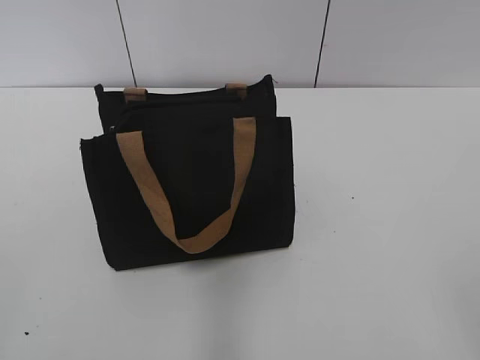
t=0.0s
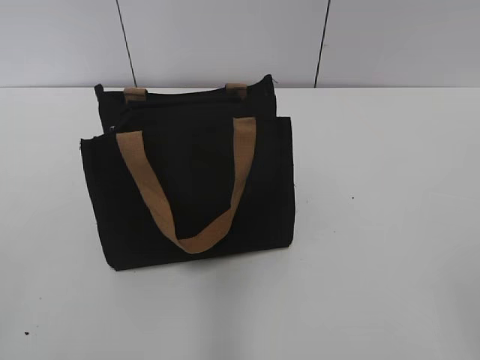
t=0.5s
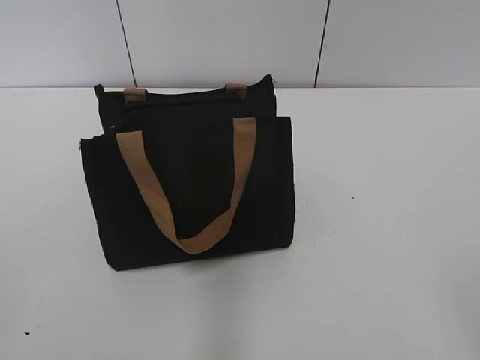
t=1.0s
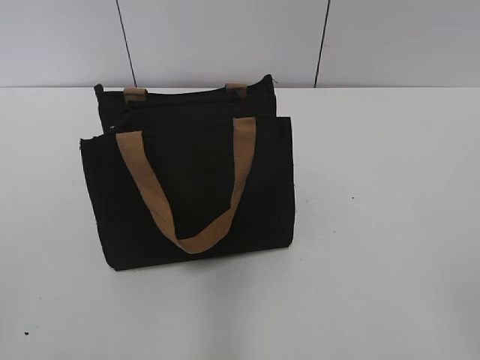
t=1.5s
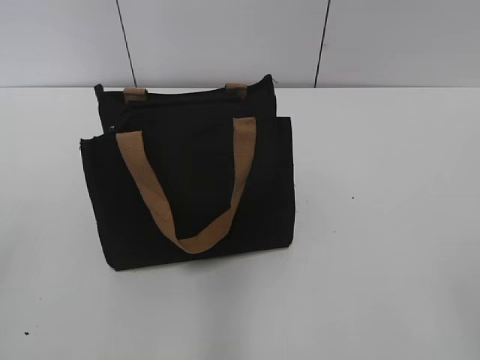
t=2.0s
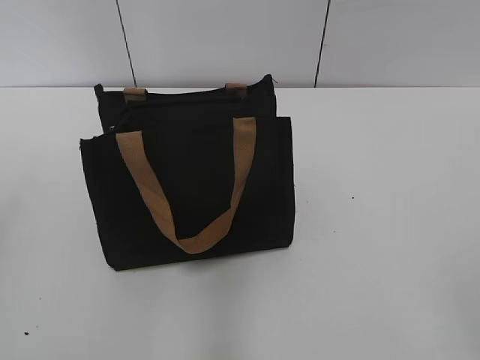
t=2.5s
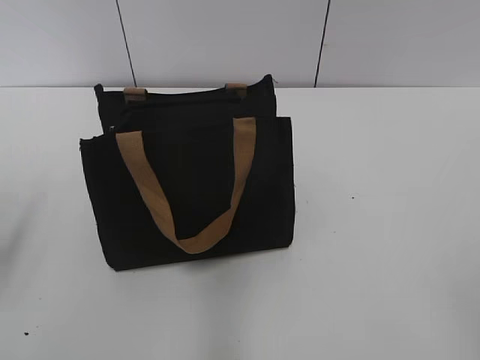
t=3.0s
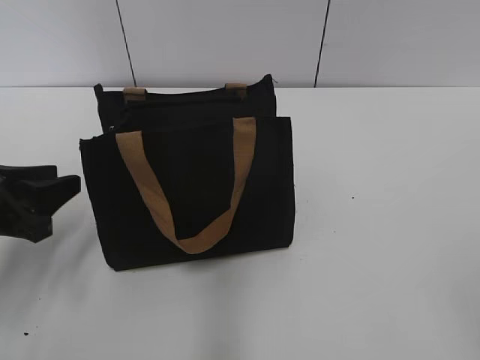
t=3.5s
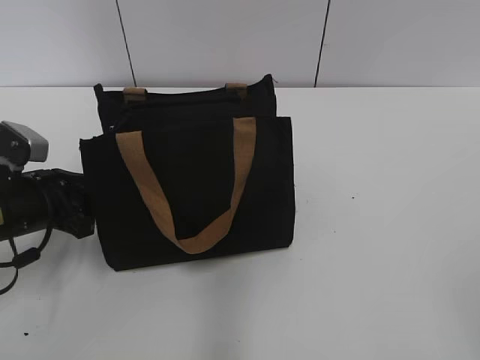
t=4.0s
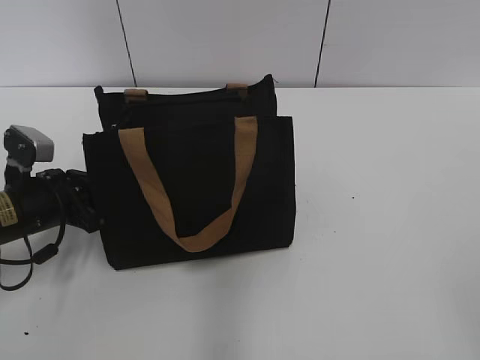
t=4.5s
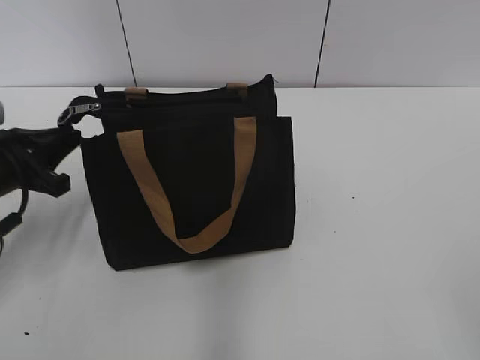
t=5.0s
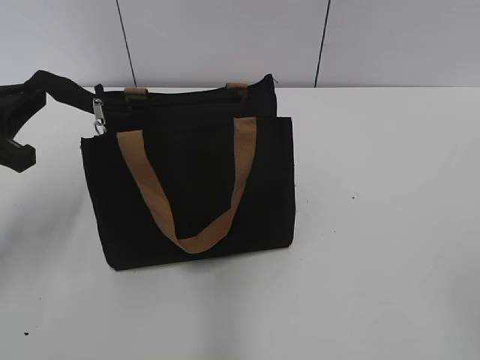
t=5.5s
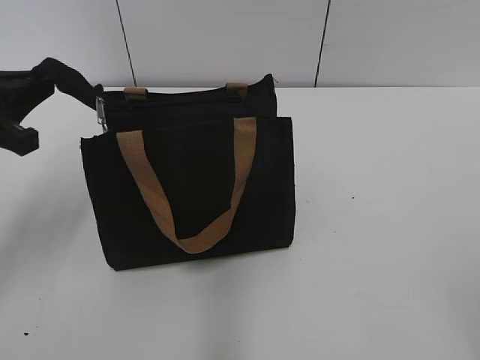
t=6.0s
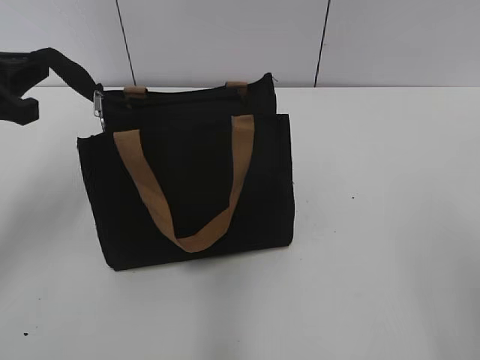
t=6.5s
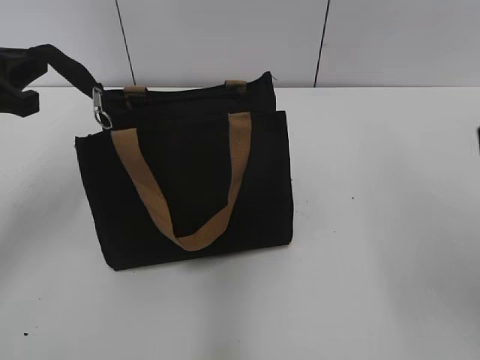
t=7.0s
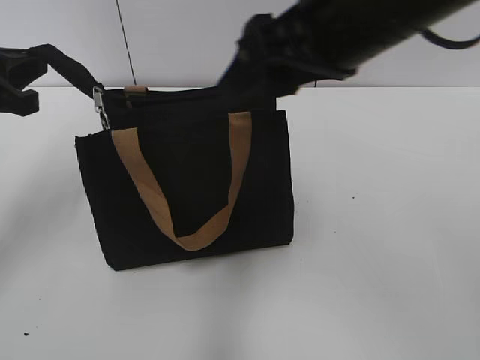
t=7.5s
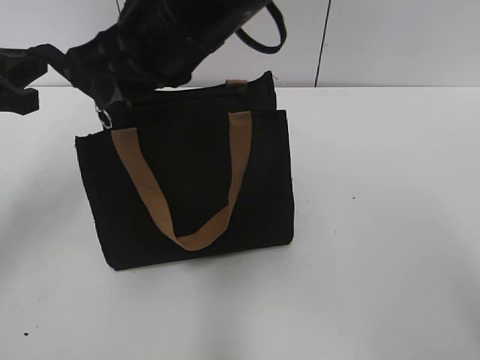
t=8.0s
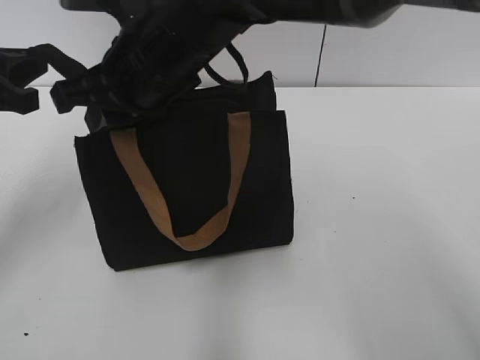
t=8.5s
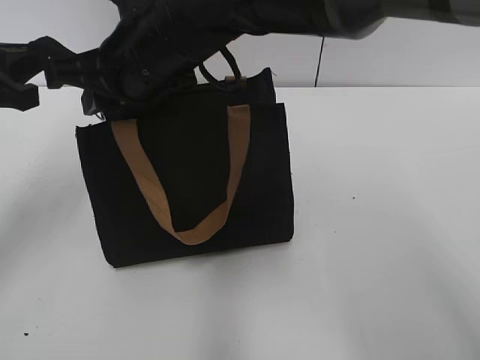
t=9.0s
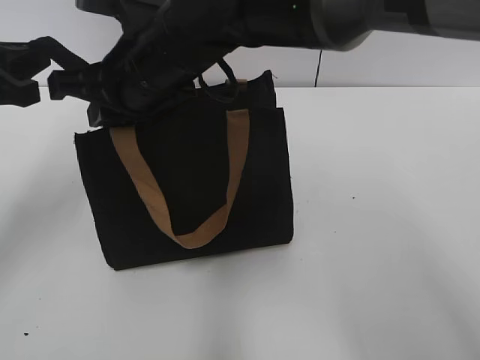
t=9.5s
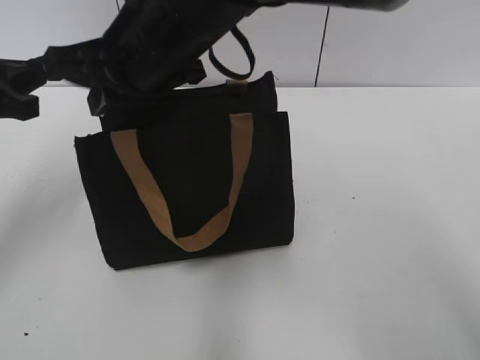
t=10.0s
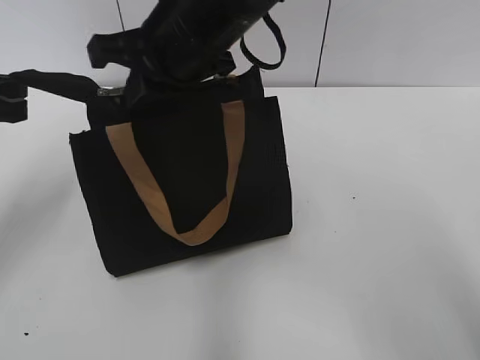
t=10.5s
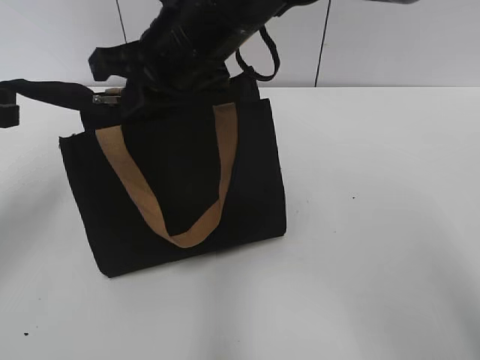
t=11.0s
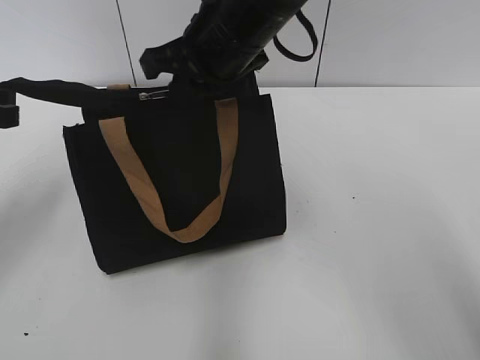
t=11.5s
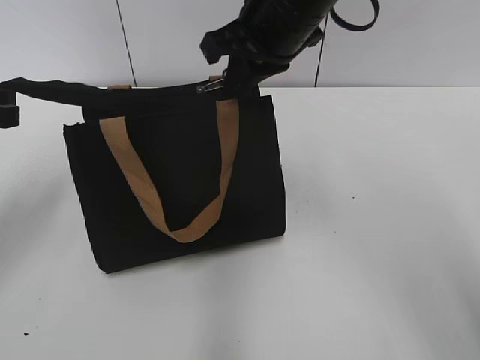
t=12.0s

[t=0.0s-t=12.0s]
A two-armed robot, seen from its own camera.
t=2.0s to t=4.0s: The left gripper travels forward and downward by about 35 cm.
t=4.0s to t=6.0s: The left gripper moves upward, approximately 15 cm, and closes up.
t=6.0s to t=8.0s: The right gripper is displaced to the left and forward by about 40 cm, and closes.
t=8.0s to t=10.0s: The right gripper closes its fingers.
t=10.0s to t=12.0s: The right gripper is displaced to the right by some 10 cm.

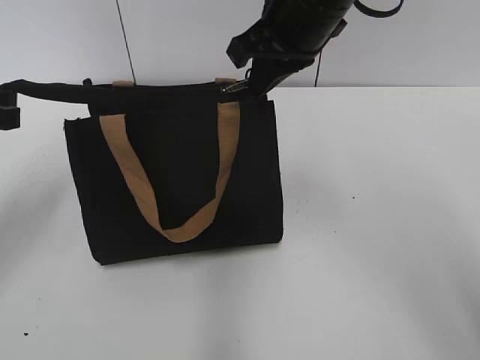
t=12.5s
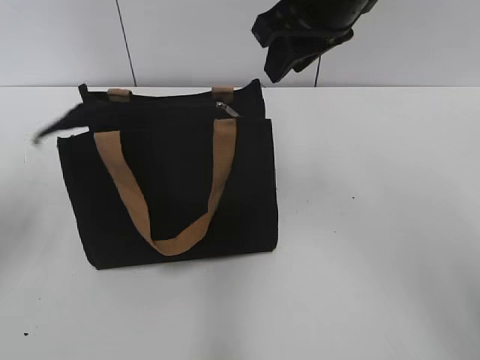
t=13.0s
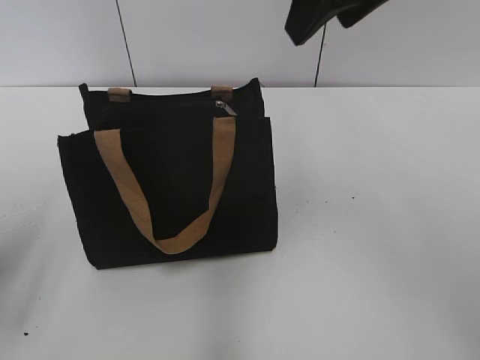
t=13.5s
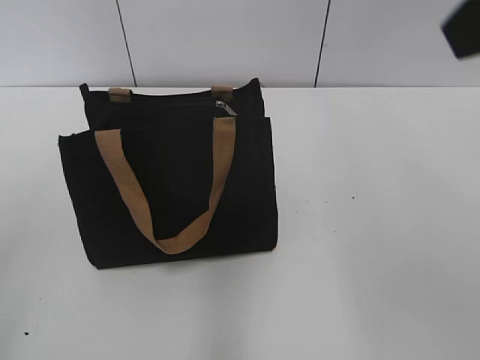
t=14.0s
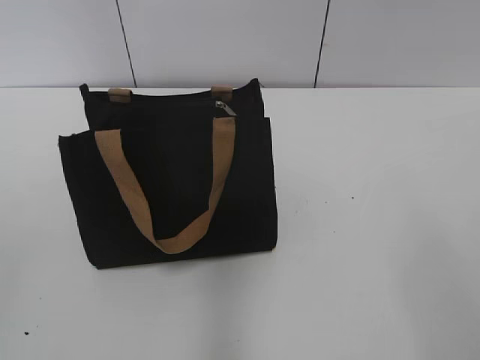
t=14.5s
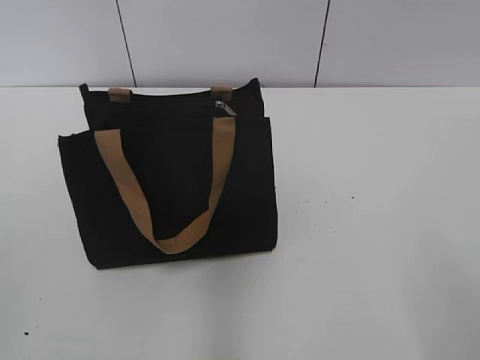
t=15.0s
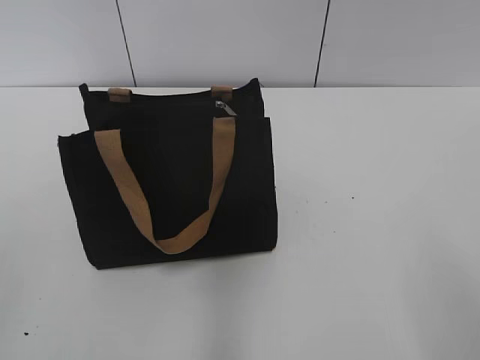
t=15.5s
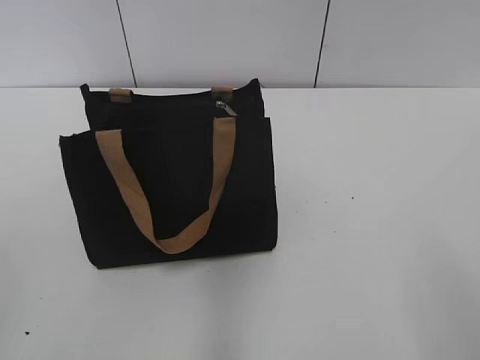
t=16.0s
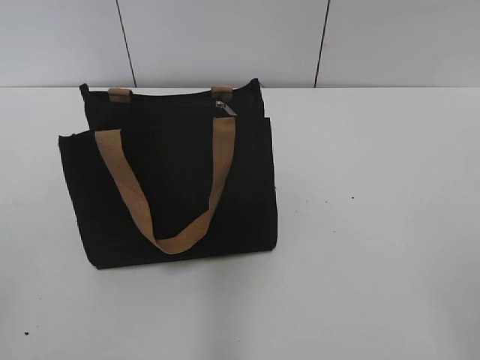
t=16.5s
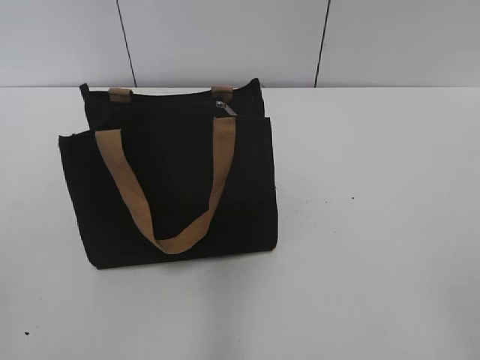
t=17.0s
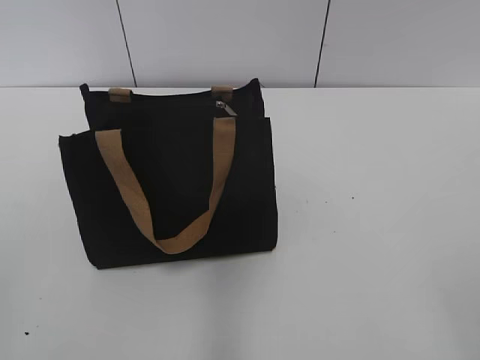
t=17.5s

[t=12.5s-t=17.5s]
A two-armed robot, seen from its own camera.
t=12.5s to t=15.0s: The right gripper heads backward and to the right, covering roughly 40 cm, and opens up; the left gripper is displaced backward by roughly 25 cm, and opens its fingers.

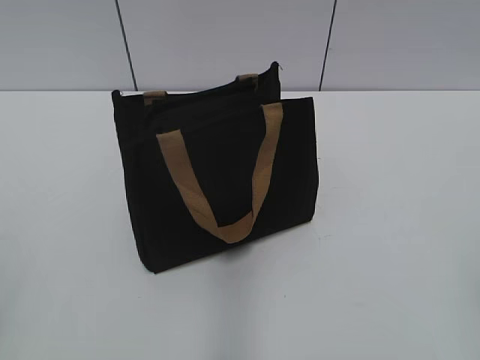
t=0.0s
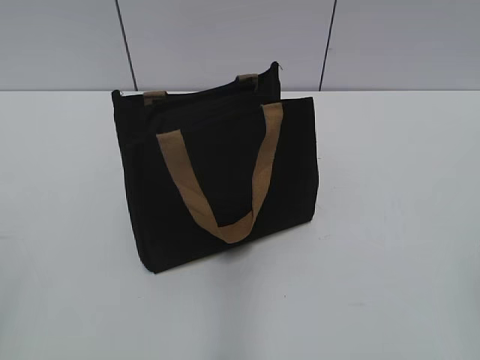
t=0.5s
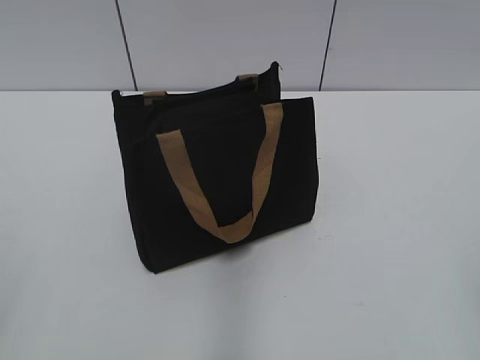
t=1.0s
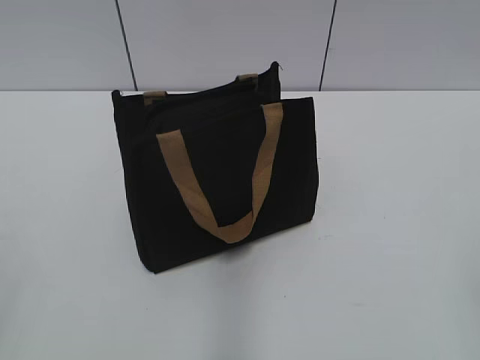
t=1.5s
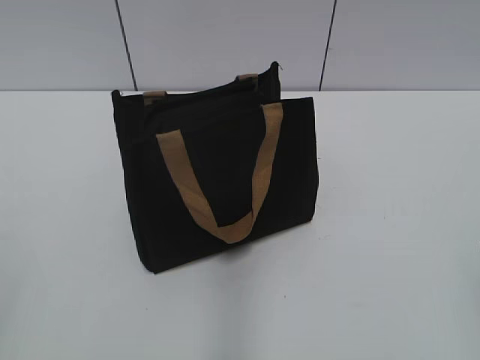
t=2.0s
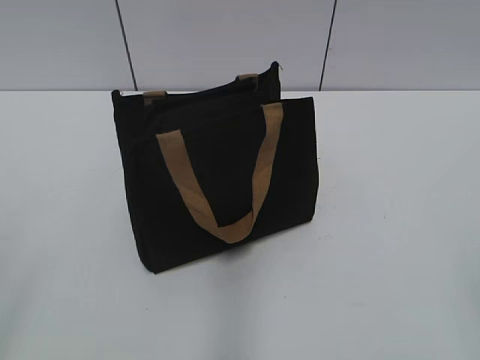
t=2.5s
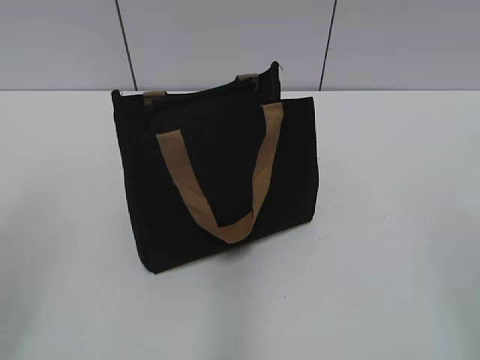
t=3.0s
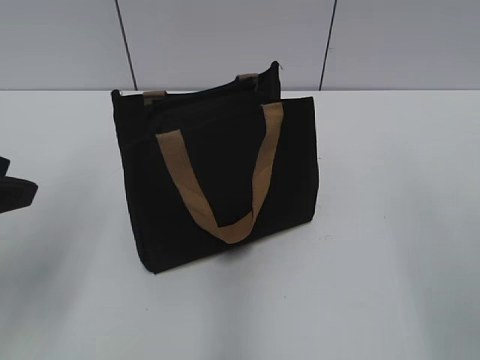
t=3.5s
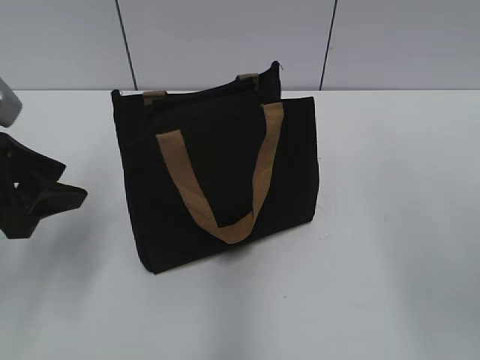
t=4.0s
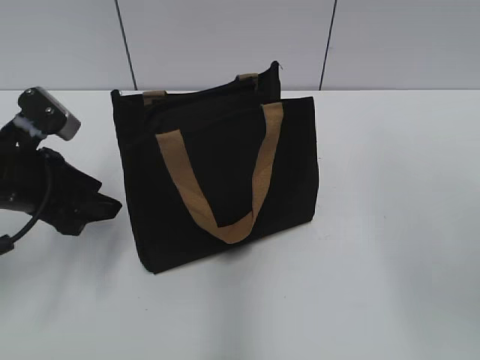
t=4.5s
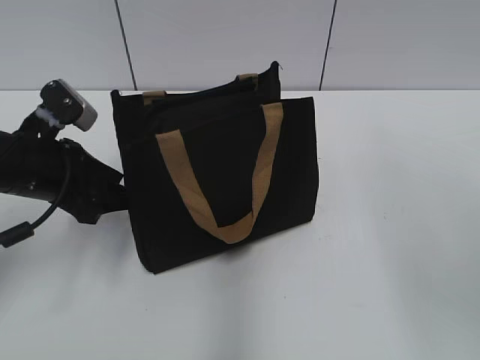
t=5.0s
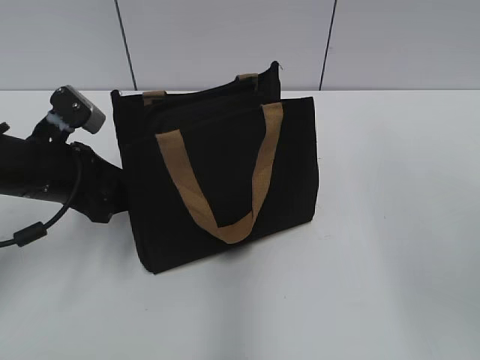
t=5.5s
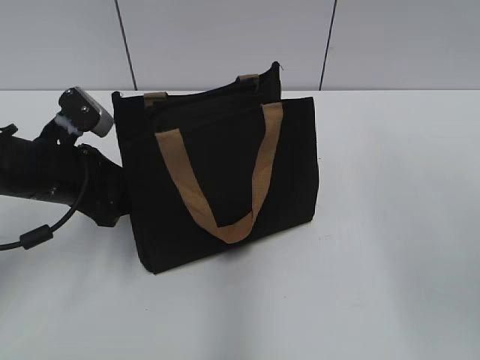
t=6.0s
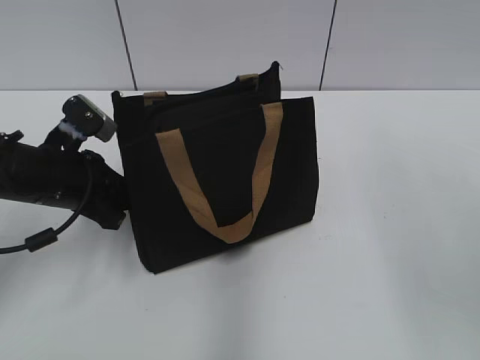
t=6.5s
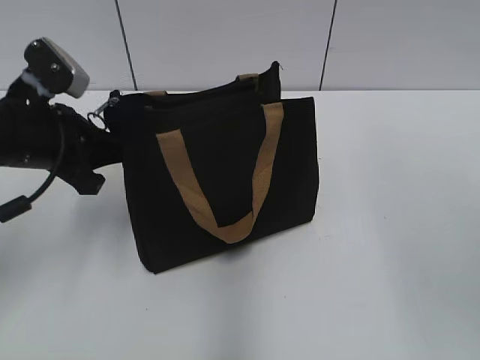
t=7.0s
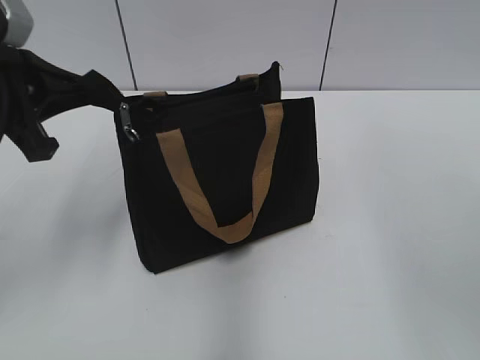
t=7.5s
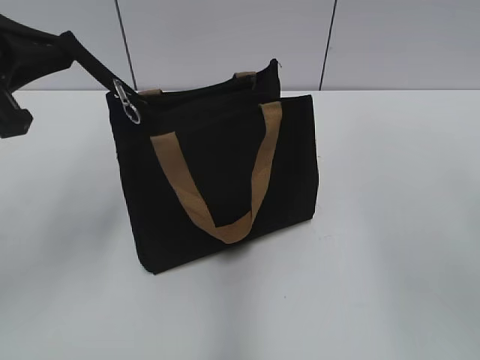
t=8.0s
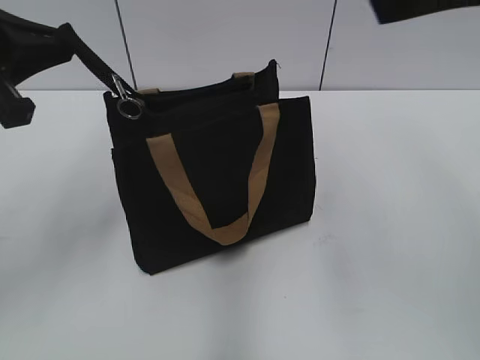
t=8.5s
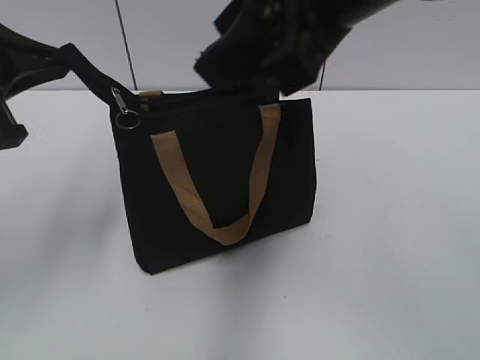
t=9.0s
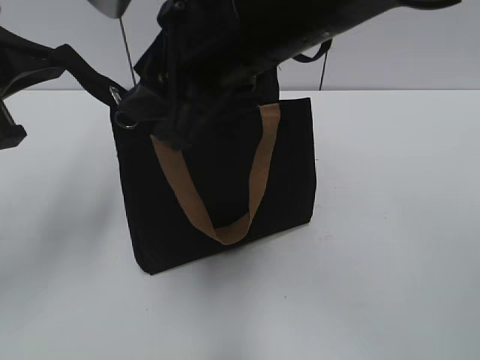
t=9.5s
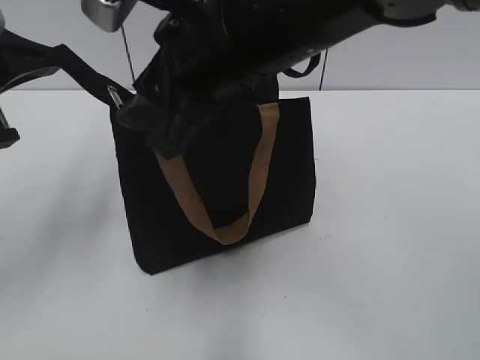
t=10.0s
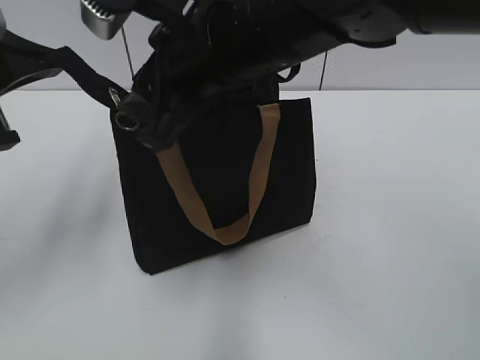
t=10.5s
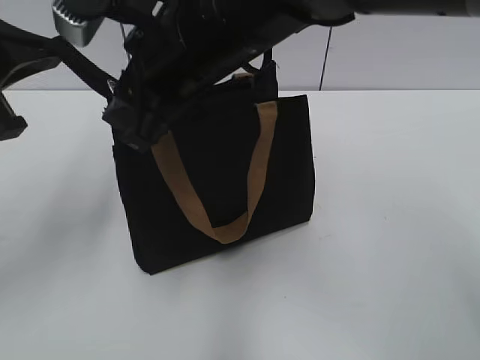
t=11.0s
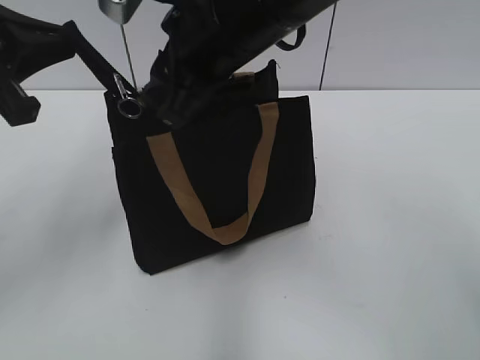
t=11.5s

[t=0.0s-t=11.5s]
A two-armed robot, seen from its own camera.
t=2.0s to t=4.0s: The right gripper goes some 20 cm forward and upward; the left gripper heads forward, covering roughly 25 cm.
t=4.0s to t=6.0s: The left gripper heads downward and forward, covering some 10 cm.
t=6.0s to t=7.5s: The left gripper travels upward by roughly 10 cm, and closes.
t=7.5s to t=9.5s: The right gripper moves to the left, forward and downward, approximately 25 cm.
t=9.5s to t=11.5s: The right gripper is displaced forward by approximately 5 cm.
